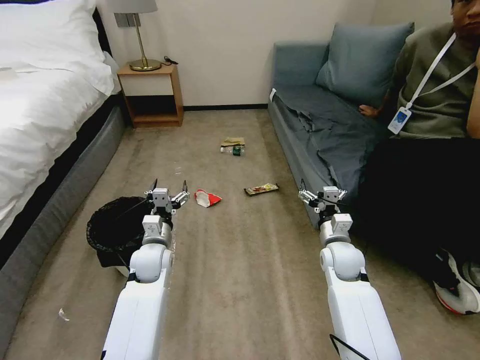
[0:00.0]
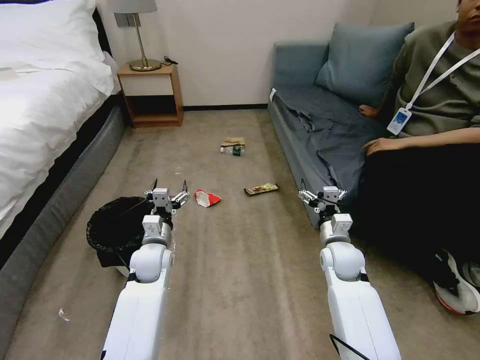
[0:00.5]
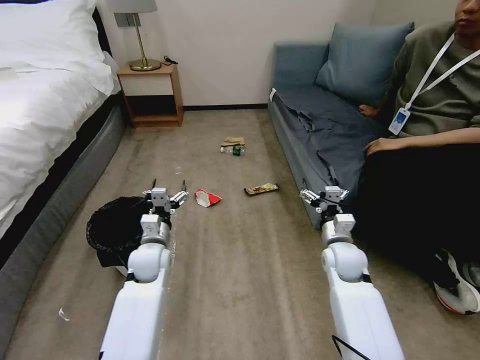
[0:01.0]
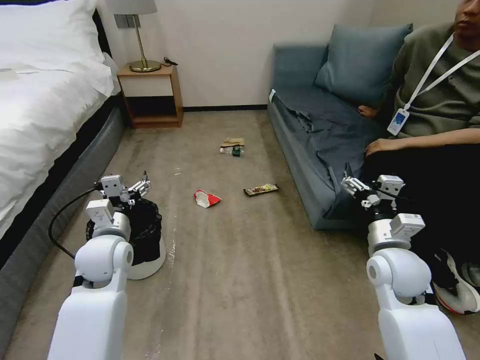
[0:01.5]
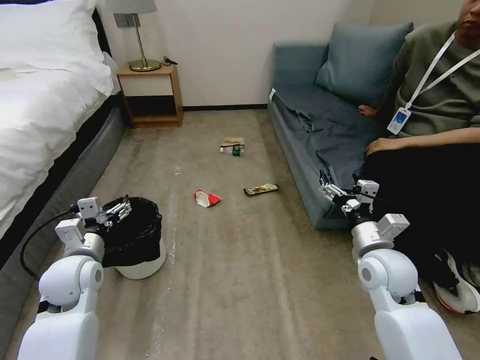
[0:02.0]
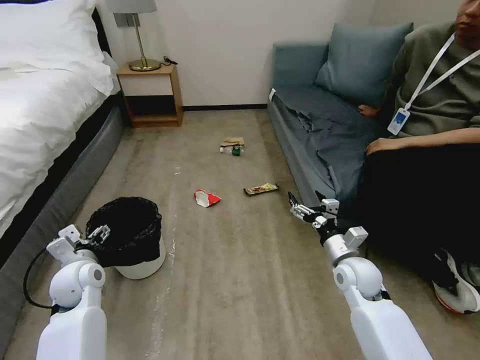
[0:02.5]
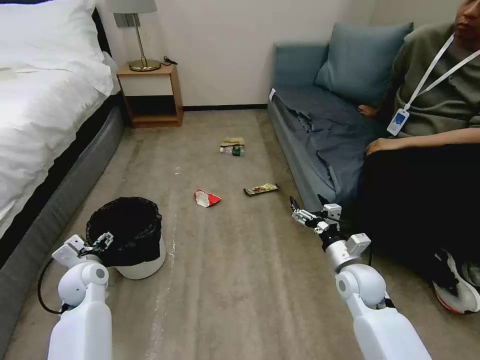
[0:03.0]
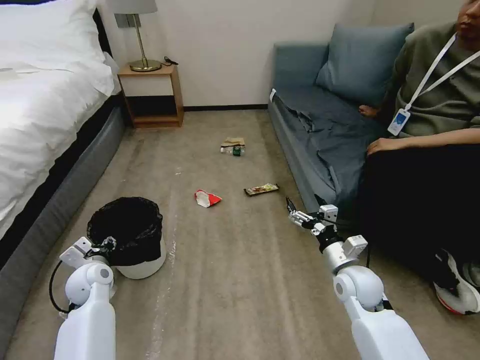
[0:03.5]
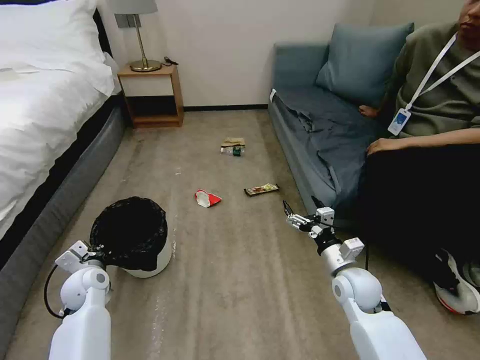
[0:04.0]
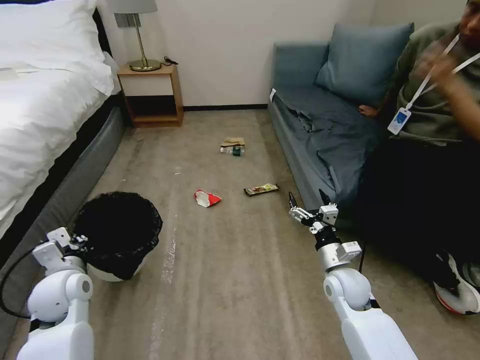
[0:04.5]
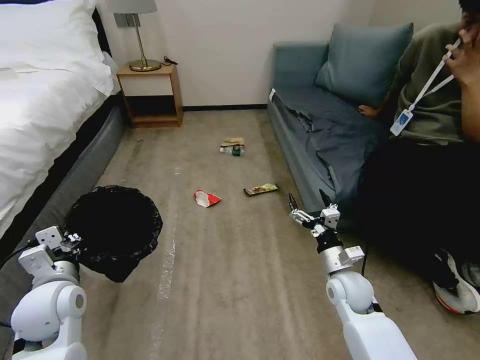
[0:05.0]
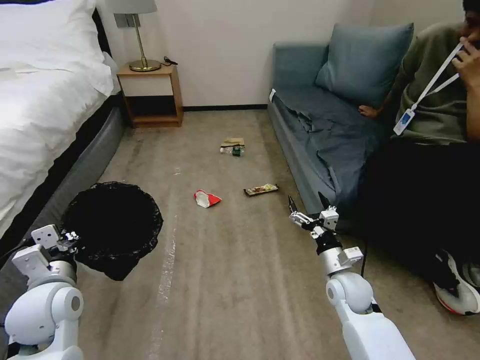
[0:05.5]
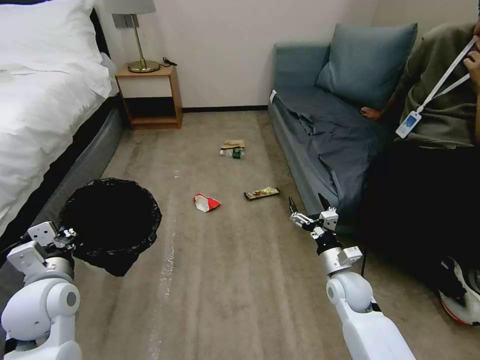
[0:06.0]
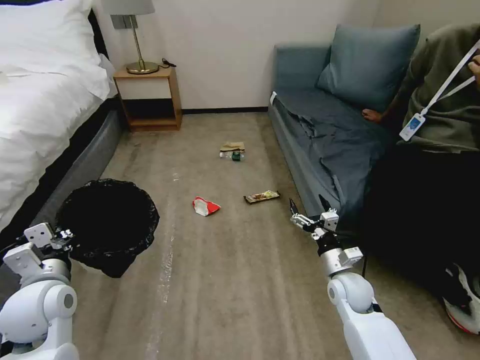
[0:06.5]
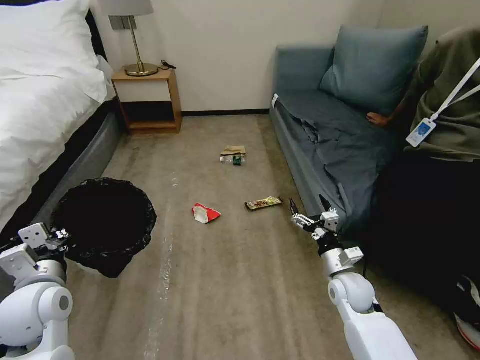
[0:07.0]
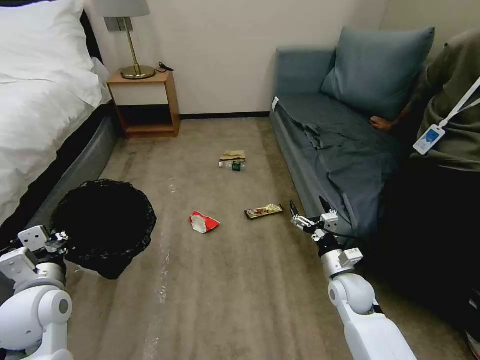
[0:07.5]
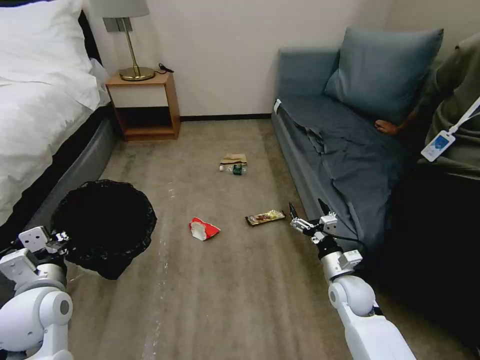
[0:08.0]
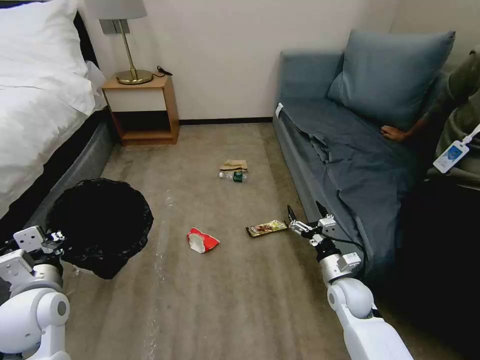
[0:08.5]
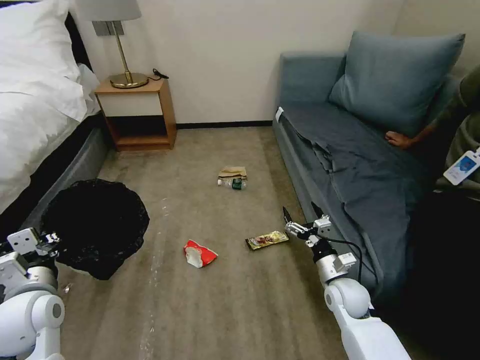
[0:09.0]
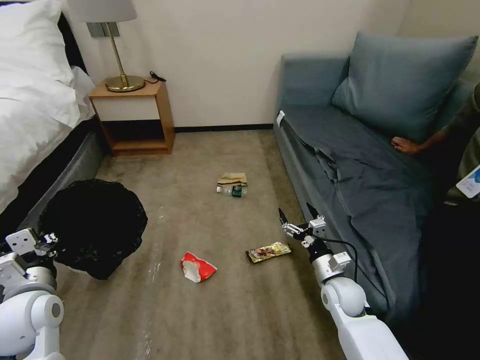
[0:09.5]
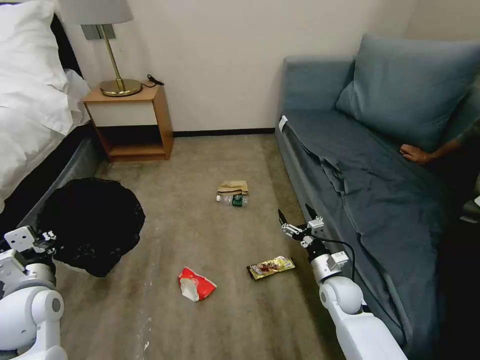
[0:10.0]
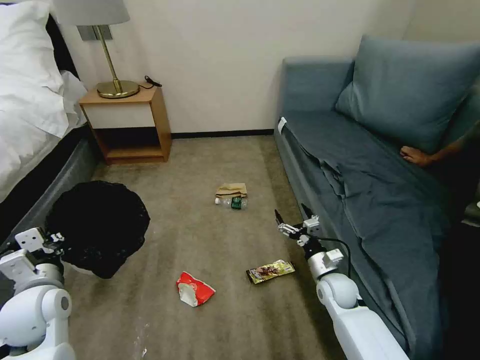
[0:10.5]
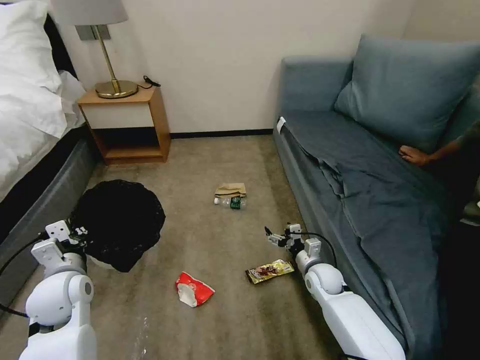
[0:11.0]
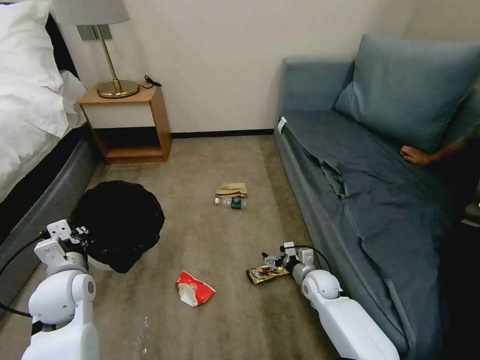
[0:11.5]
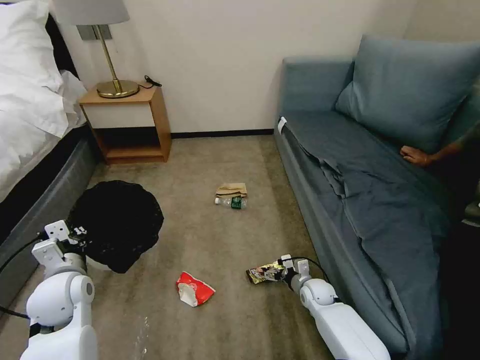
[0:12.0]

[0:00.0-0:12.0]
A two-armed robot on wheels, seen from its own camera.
Task of the whole recording: Pick up the trash bin, then pick up the garbage on the floor and place it into the trash bin.
0:02.0 to 0:04.0: The grippers both shift downward by roughly 10 cm. The left gripper closes its fingers.
0:04.0 to 0:06.0: The left gripper moves upward and backward, approximately 15 cm.
0:10.0 to 0:12.0: The left gripper moves some 5 cm. The right gripper moves downward, about 10 cm.

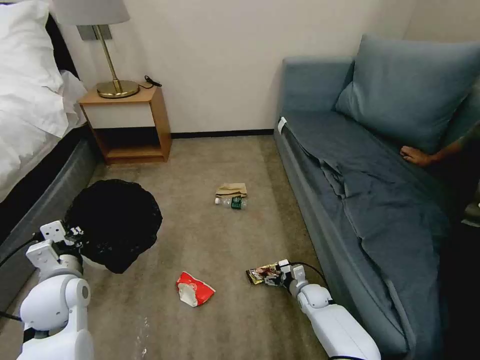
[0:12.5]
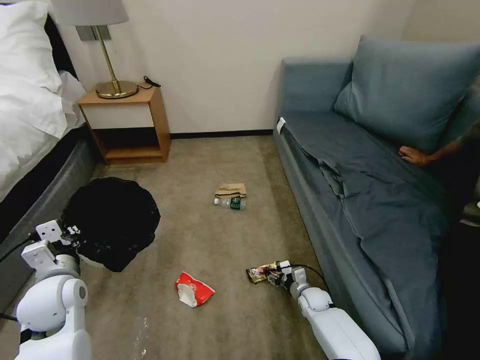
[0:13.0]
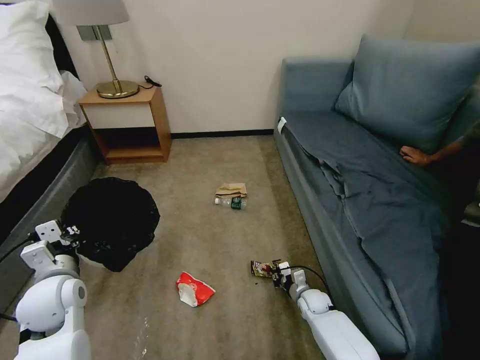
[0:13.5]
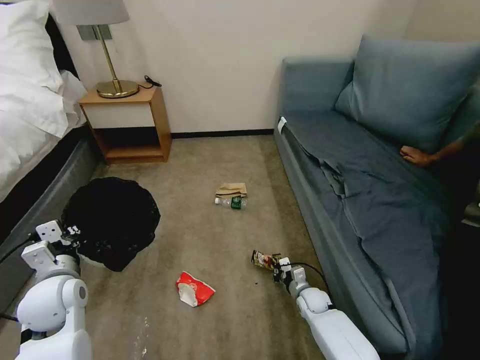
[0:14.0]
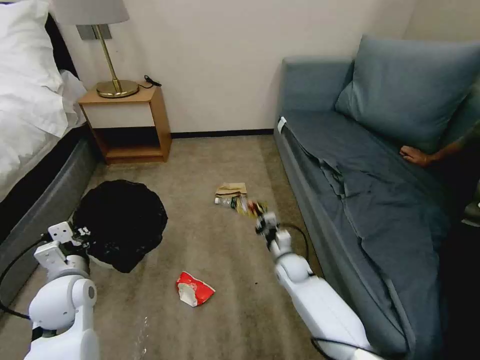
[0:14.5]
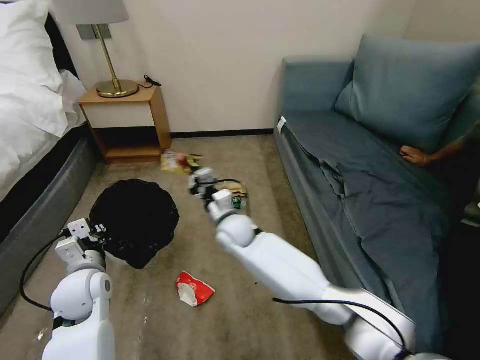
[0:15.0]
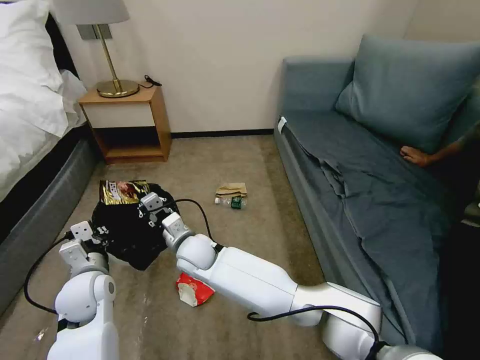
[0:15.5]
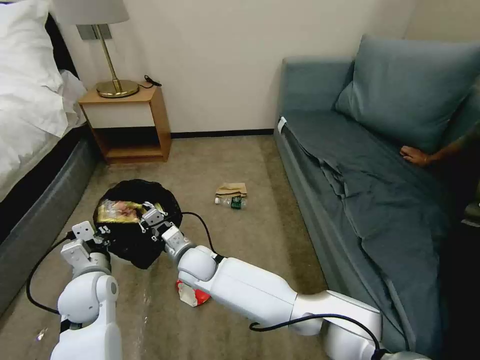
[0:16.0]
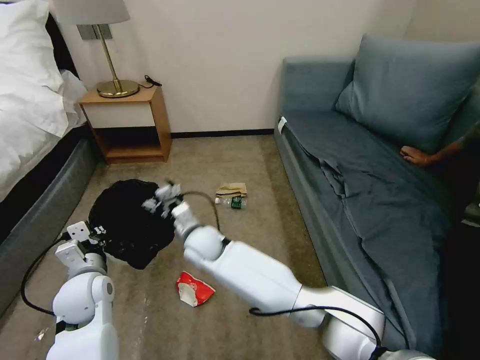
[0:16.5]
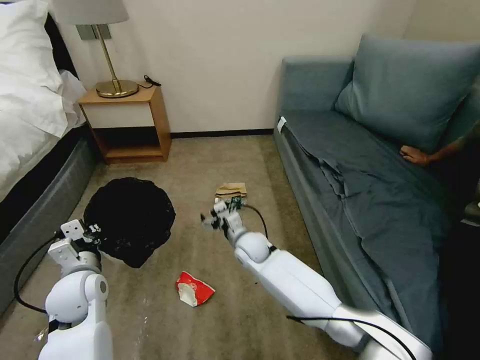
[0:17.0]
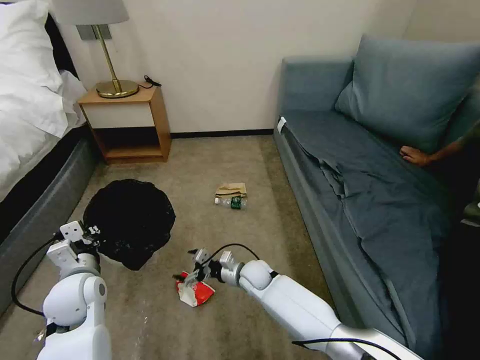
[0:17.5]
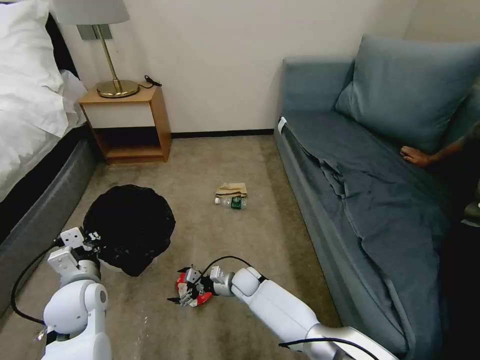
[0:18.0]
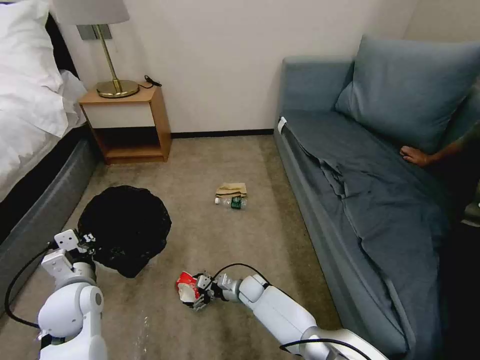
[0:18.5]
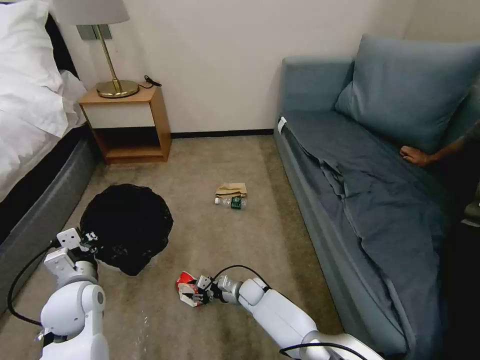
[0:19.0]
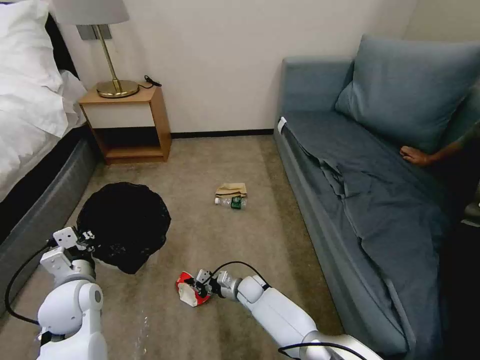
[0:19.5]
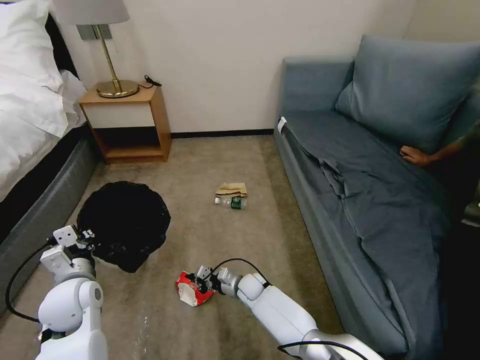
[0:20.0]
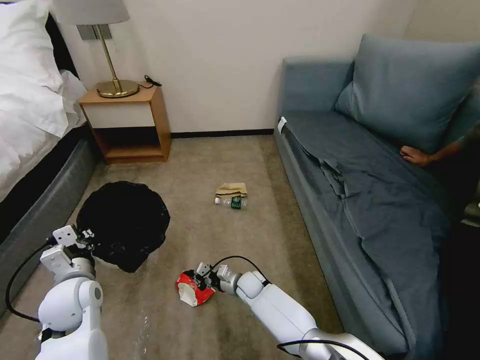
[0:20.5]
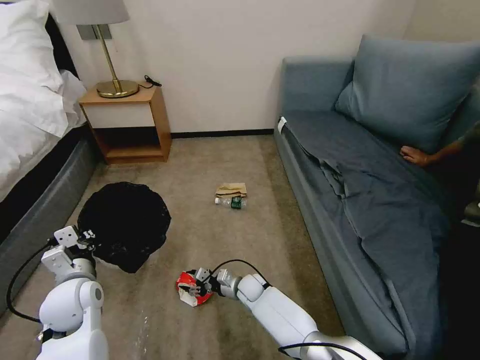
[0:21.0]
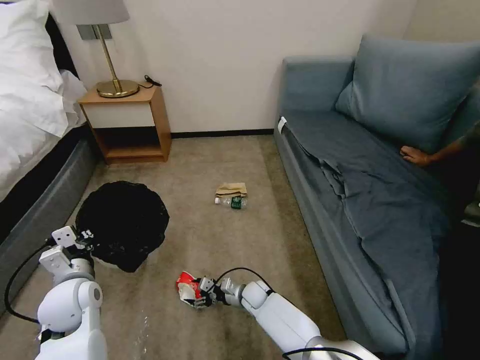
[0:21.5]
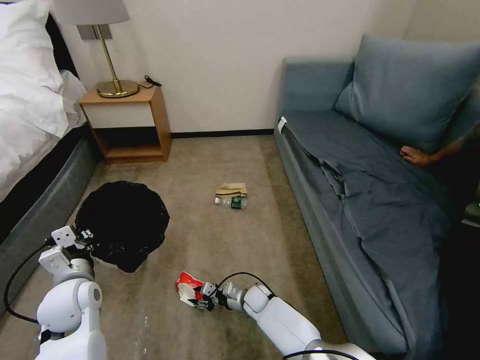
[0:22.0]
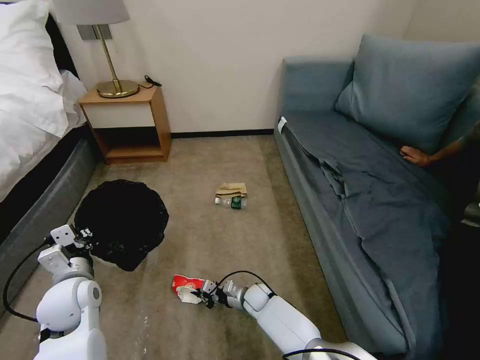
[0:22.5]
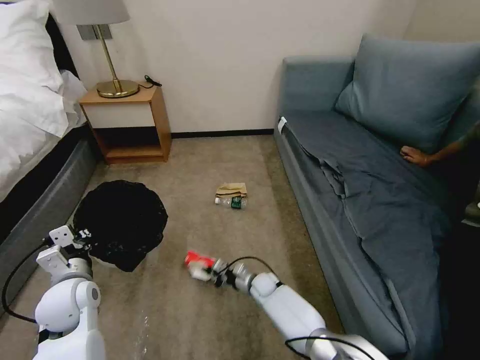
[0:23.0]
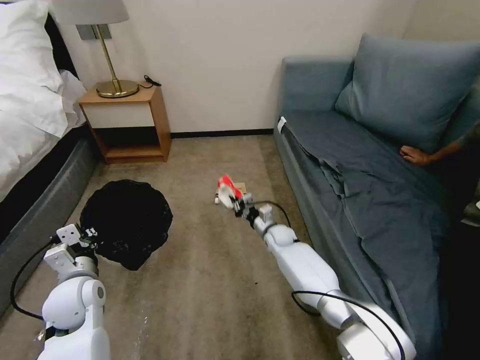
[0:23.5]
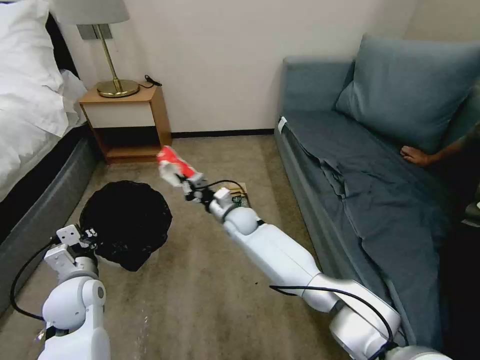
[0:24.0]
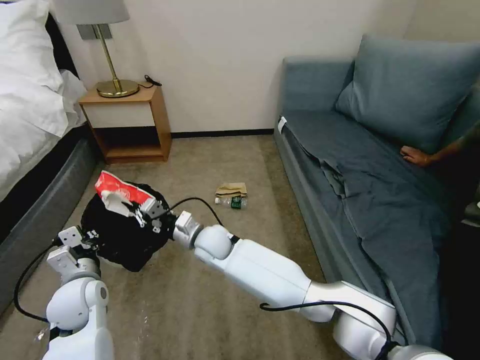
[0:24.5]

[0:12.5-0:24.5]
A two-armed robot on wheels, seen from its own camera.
Task of the whole recording: Pick up the trash bin, then pick up the garbage on the floor and place it into the trash bin.
0:12.5 to 0:14.5: The right gripper moves upward, to the left and forward, about 15 cm, and closes its fingers.
0:14.5 to 0:16.5: The right gripper travels to the left and upward by approximately 25 cm, and opens its fingers.
0:16.5 to 0:18.5: The right gripper is displaced downward and to the right by approximately 25 cm.
0:18.5 to 0:20.5: The right gripper closes its fingers.
0:20.5 to 0:22.5: The right gripper moves some 5 cm, and opens, then closes once more.
0:22.5 to 0:24.5: The right gripper is displaced upward and to the left by roughly 30 cm.

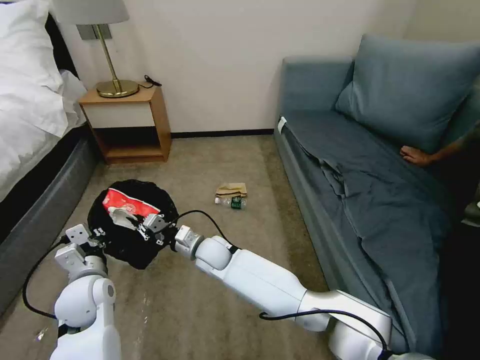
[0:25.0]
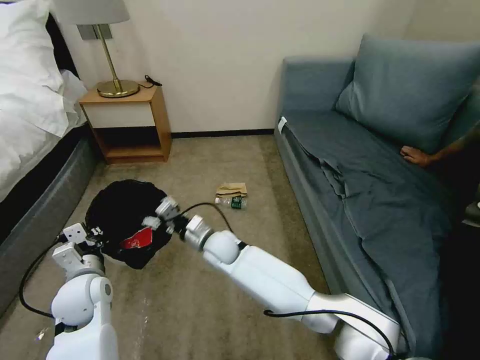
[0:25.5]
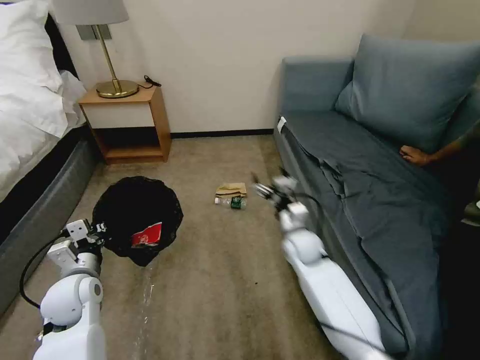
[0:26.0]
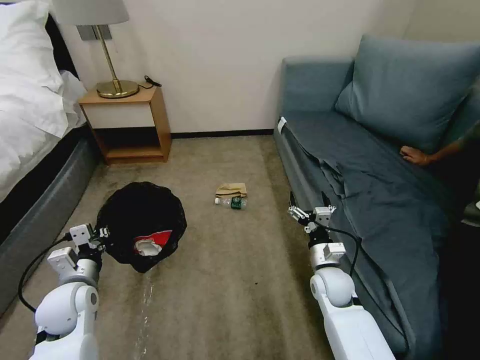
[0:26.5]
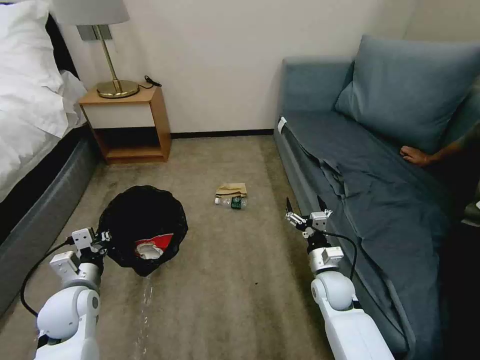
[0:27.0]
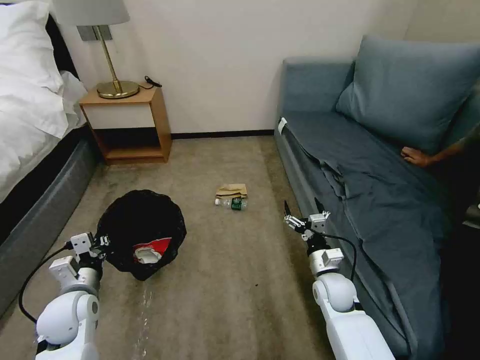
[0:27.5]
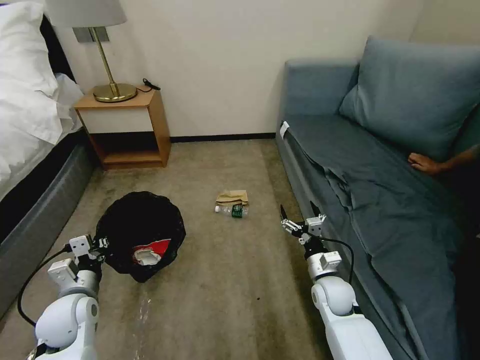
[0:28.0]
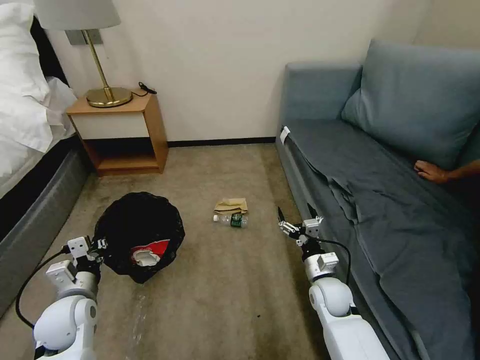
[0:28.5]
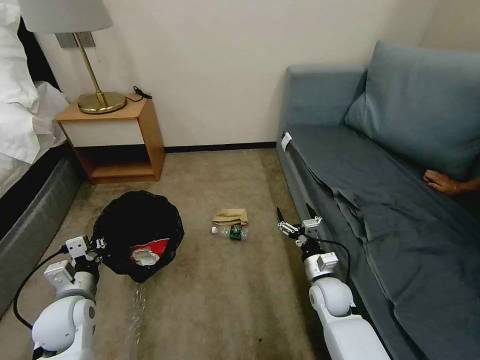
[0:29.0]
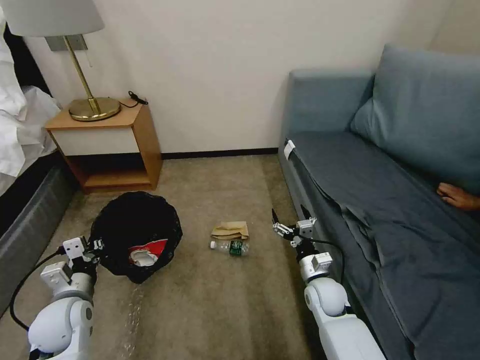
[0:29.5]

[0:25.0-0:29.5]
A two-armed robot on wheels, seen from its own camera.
Task of the whole recording: Pick up the trash bin, then pick up the garbage on the floor and place it into the trash bin.
0:25.0 to 0:27.0: The right gripper shifts about 30 cm to the right, and opens.
